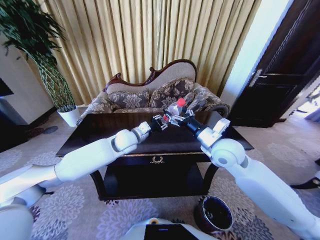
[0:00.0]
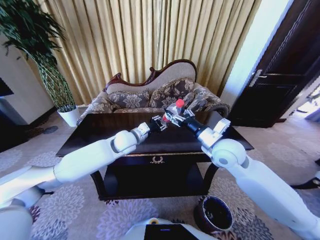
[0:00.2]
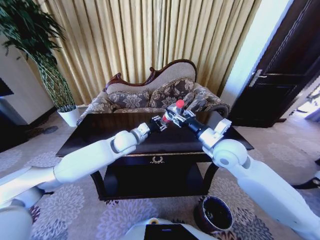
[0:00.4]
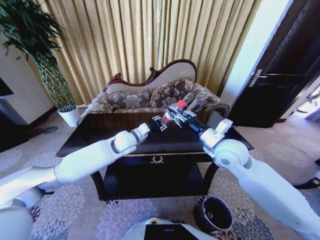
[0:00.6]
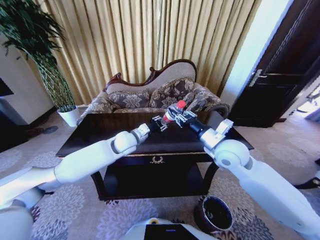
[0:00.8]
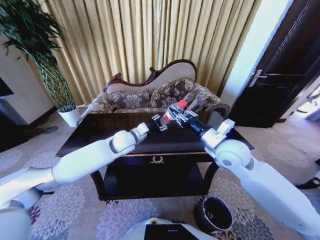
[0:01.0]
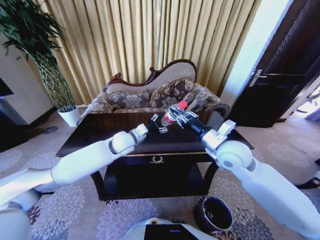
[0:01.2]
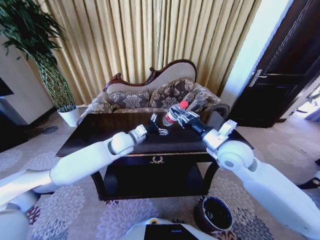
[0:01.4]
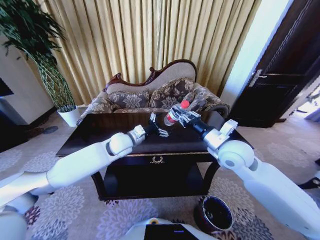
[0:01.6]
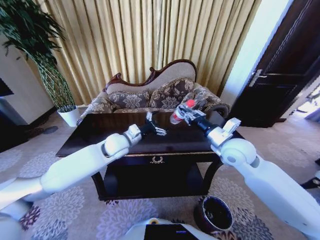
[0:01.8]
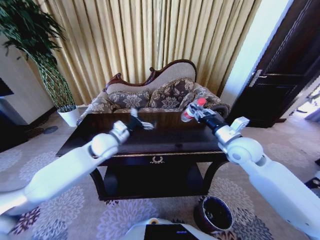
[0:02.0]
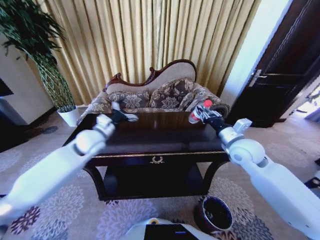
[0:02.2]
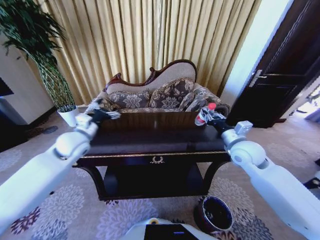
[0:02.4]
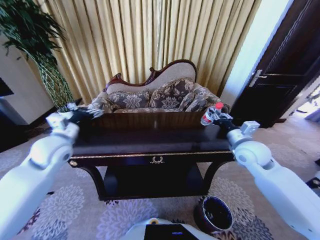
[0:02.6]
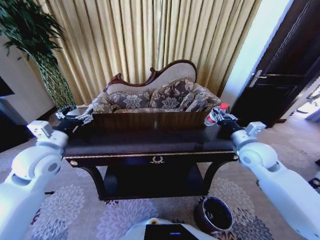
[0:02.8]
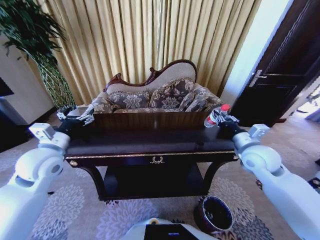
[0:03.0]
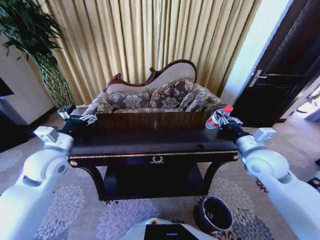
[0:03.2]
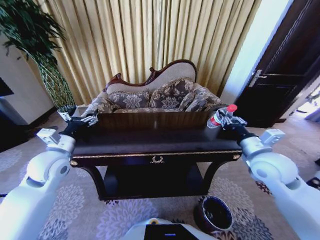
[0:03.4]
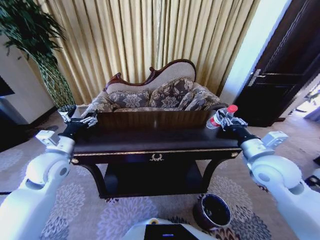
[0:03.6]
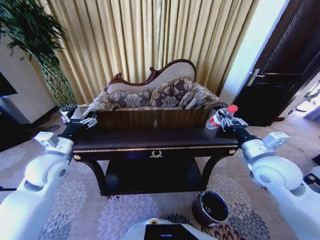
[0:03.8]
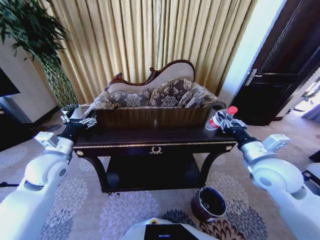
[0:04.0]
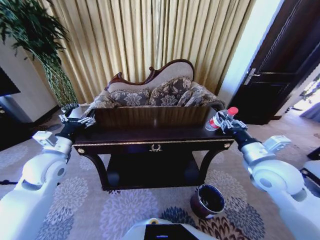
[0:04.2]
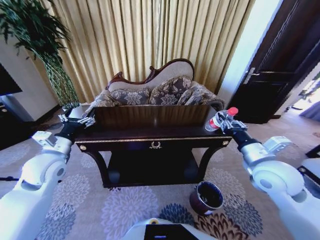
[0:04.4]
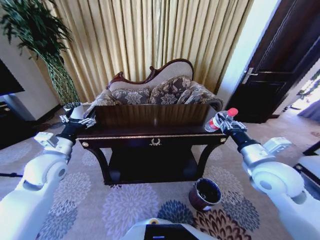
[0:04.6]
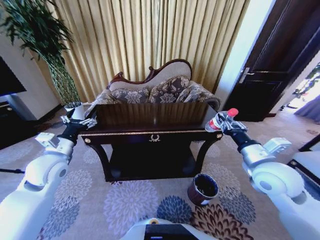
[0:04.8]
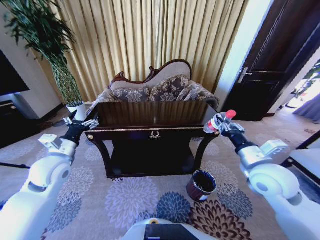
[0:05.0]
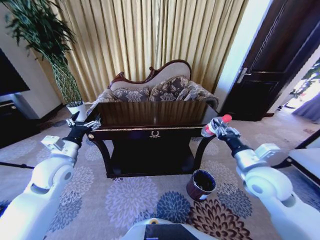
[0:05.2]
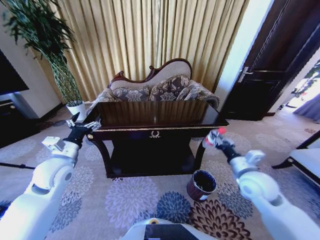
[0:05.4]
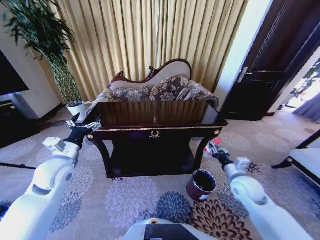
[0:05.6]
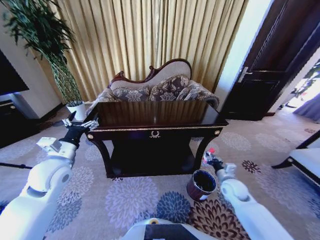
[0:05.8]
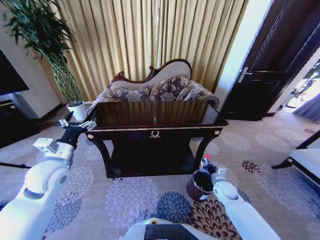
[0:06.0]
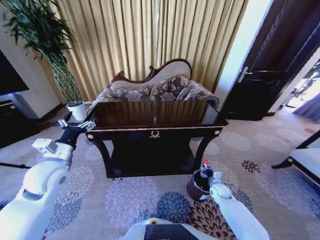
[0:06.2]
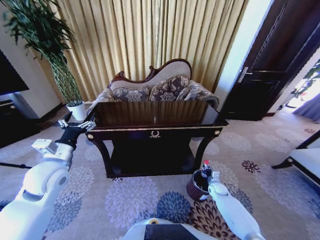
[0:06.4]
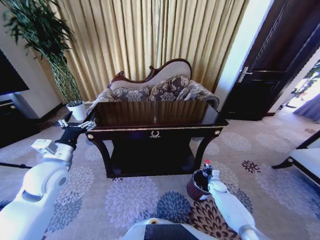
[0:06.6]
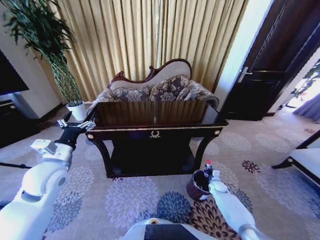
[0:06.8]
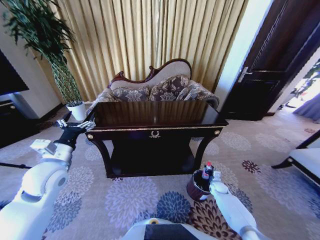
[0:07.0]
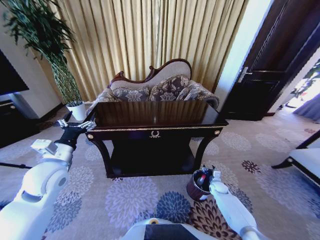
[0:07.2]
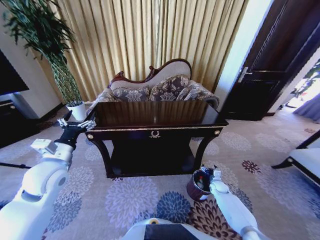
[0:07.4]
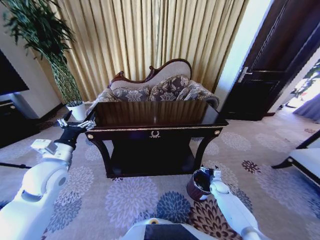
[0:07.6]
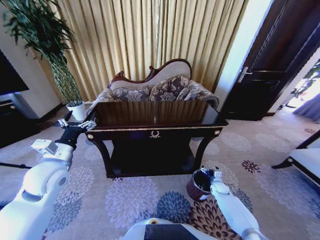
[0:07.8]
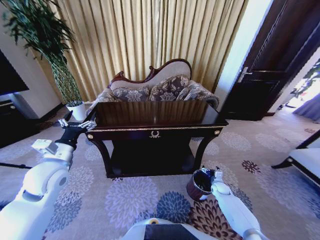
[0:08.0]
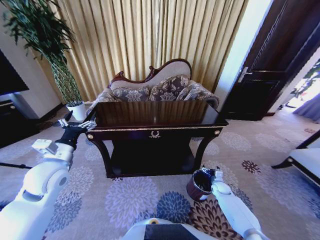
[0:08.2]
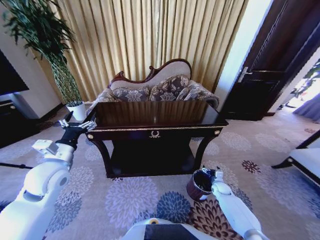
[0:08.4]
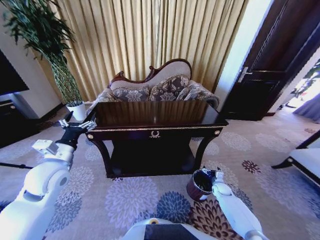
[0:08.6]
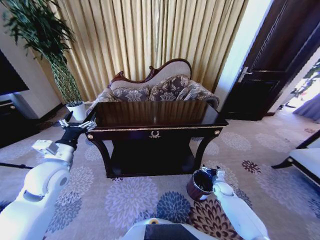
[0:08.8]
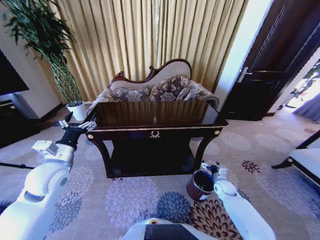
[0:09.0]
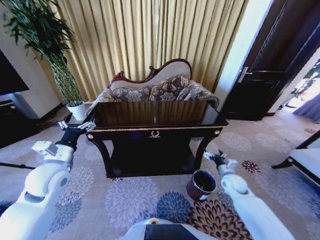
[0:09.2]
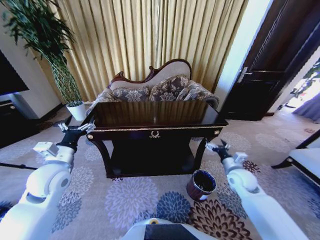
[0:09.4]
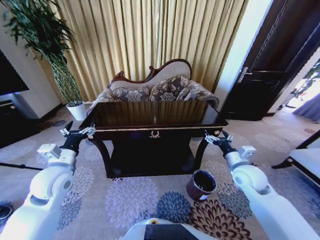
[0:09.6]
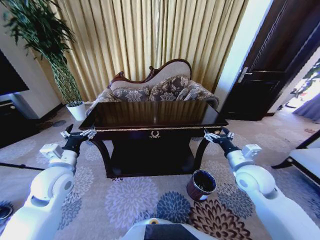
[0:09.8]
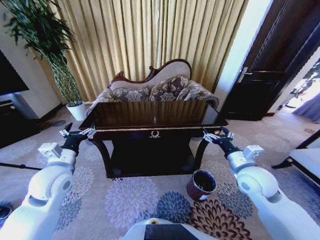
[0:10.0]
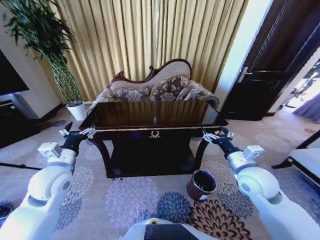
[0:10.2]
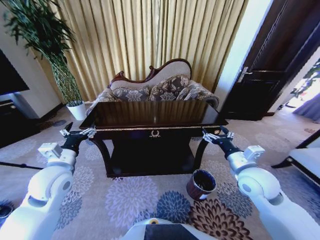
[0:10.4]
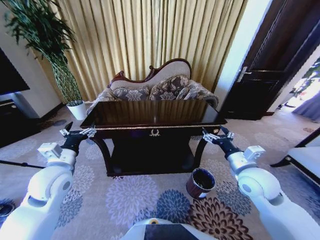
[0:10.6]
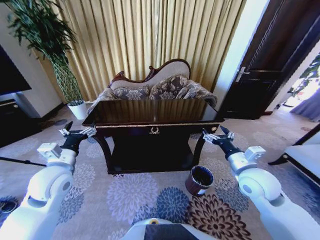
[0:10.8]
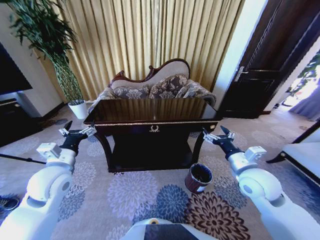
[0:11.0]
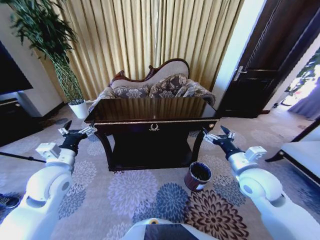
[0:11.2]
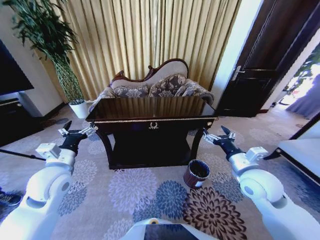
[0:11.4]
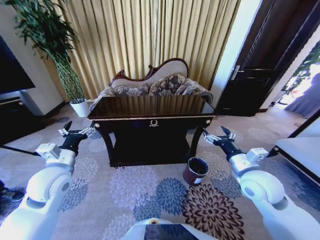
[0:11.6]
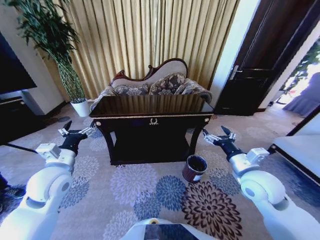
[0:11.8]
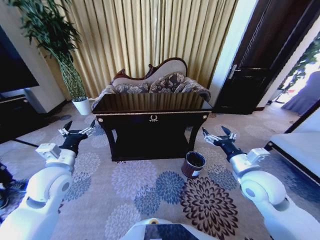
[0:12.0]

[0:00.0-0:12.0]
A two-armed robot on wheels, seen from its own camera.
Task of the whole recording: Move to the front of the table and place the trash on the table into the trash bin.
0:00.0 to 0:01.6: The left gripper opens its fingers; the right gripper closes up.
0:01.6 to 0:03.0: The left gripper travels to the left and backward by about 25 cm. The right gripper is displaced to the right by roughly 10 cm.
0:03.0 to 0:04.4: The right gripper shifts approximately 5 cm backward.
0:04.4 to 0:06.0: The right gripper heads downward, covering roughly 30 cm.
0:06.0 to 0:07.6: The right gripper is displaced downward by about 10 cm, and opens up.
0:07.6 to 0:09.0: The right gripper goes approximately 10 cm upward.
0:09.0 to 0:10.4: The right gripper moves upward, approximately 30 cm.

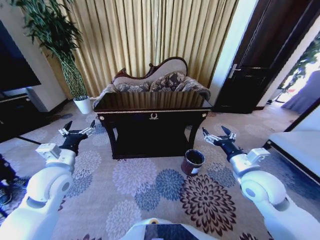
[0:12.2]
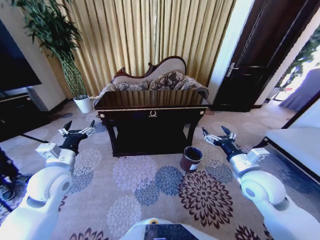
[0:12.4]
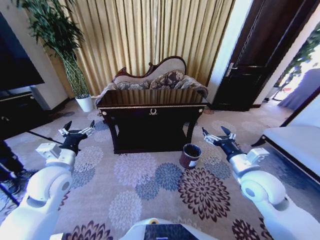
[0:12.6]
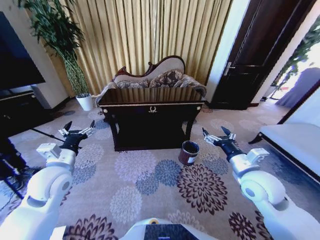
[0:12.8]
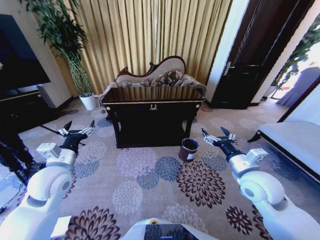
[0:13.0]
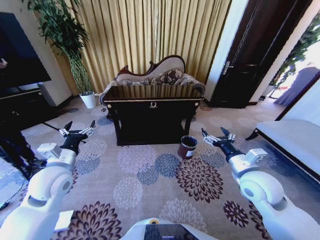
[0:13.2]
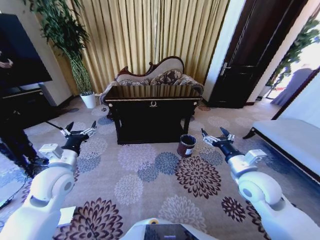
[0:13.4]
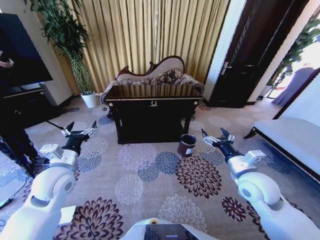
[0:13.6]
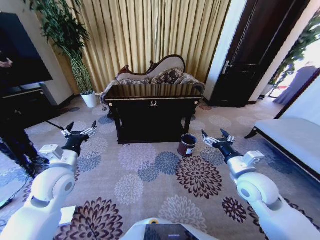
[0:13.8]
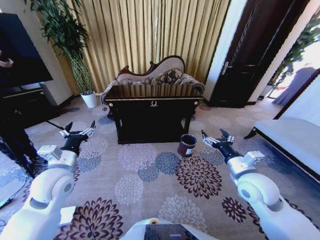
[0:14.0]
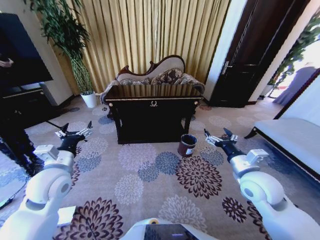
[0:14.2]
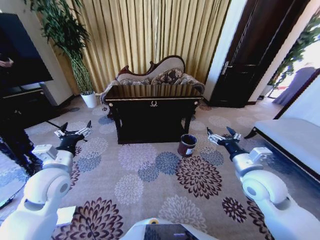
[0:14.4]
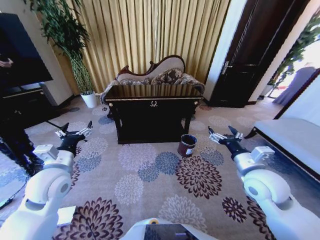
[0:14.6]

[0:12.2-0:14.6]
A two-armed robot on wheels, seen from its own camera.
Task of the whole recording: Move to the front of the table and place the trash on the table into the trash bin.
0:13.4 to 0:14.6: The grippers move only a little.

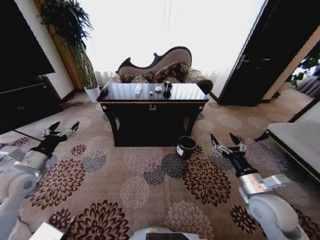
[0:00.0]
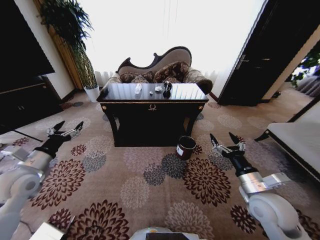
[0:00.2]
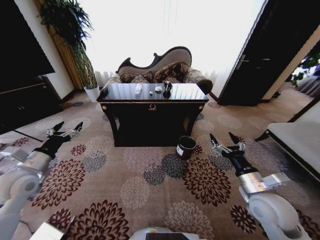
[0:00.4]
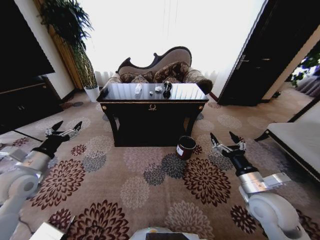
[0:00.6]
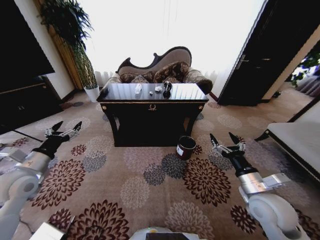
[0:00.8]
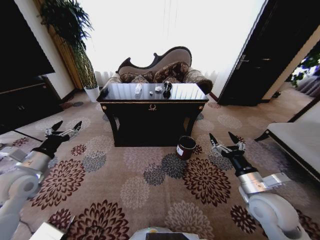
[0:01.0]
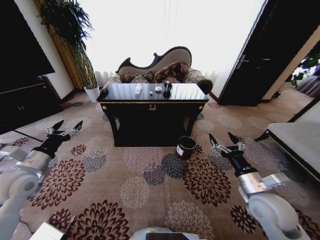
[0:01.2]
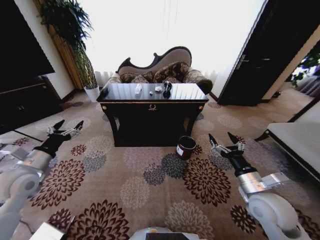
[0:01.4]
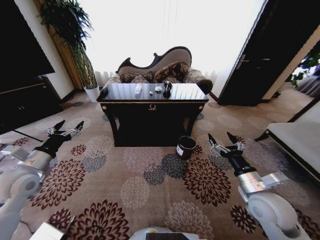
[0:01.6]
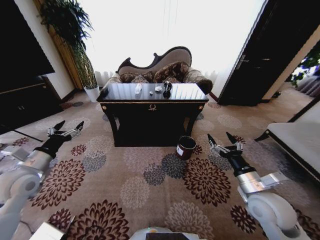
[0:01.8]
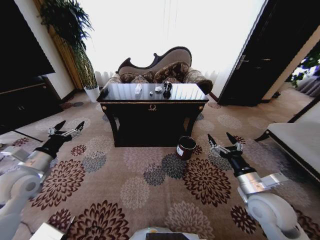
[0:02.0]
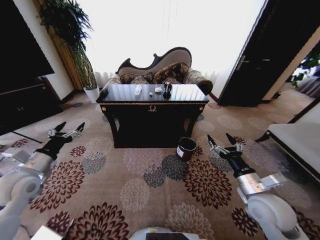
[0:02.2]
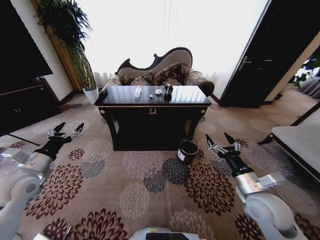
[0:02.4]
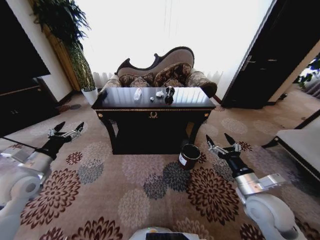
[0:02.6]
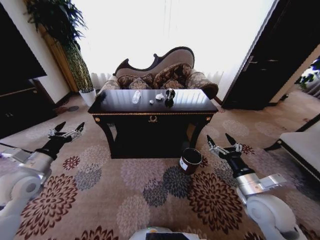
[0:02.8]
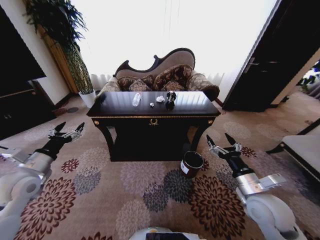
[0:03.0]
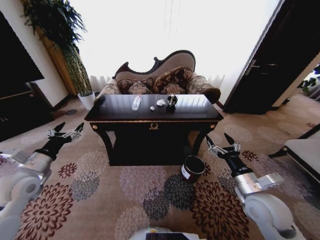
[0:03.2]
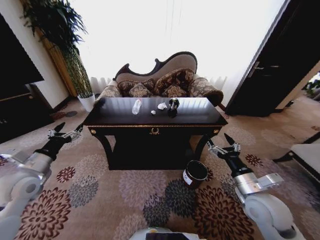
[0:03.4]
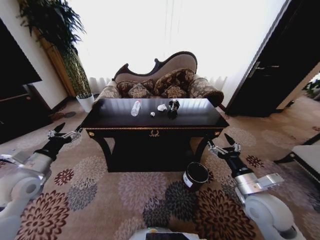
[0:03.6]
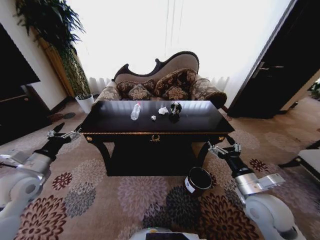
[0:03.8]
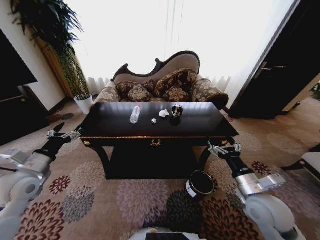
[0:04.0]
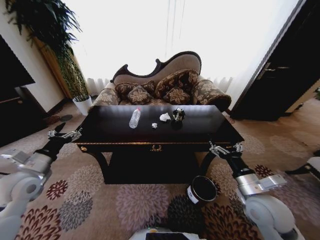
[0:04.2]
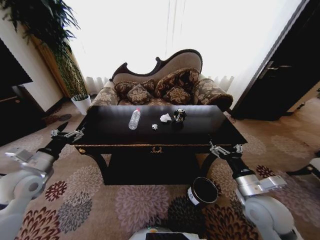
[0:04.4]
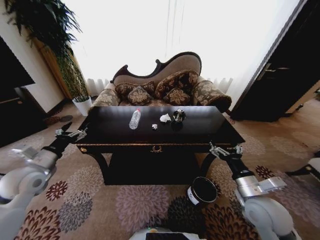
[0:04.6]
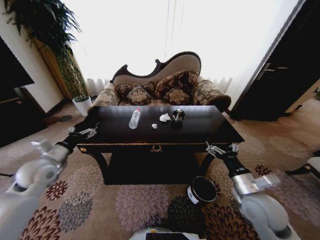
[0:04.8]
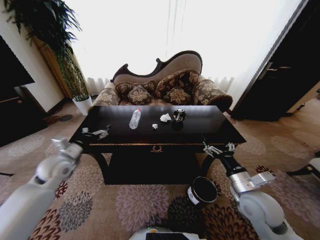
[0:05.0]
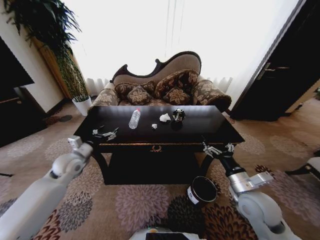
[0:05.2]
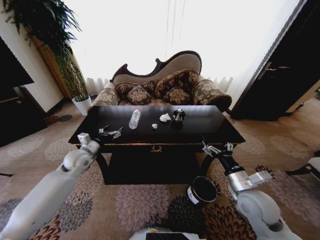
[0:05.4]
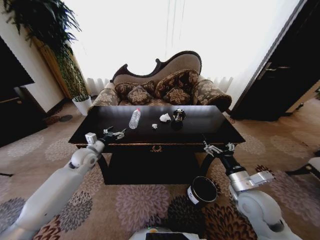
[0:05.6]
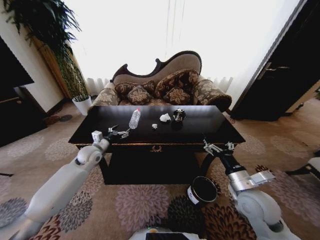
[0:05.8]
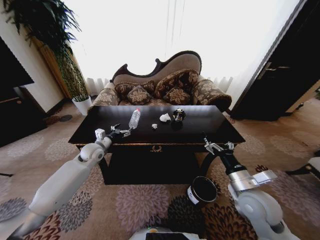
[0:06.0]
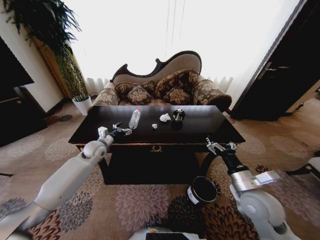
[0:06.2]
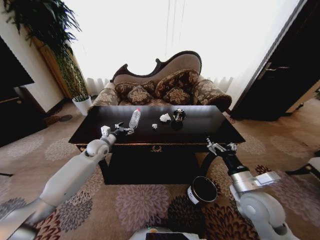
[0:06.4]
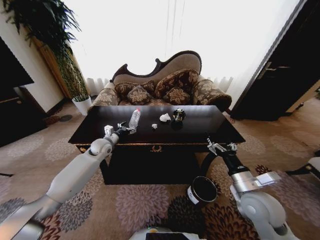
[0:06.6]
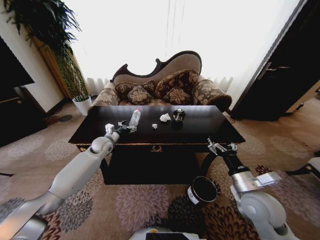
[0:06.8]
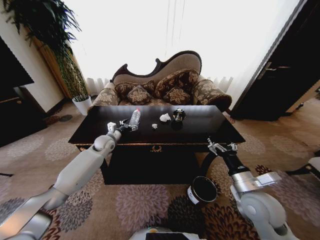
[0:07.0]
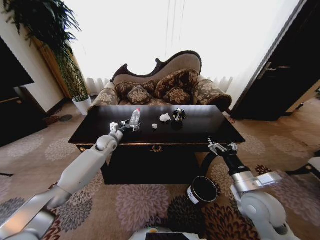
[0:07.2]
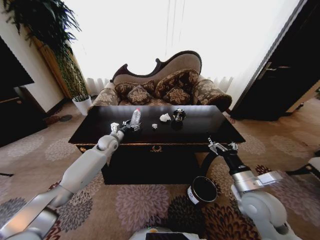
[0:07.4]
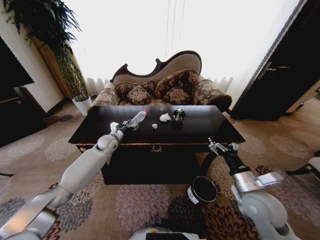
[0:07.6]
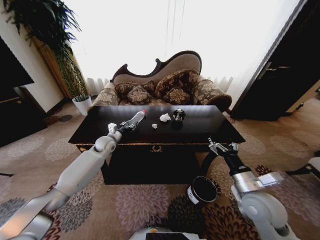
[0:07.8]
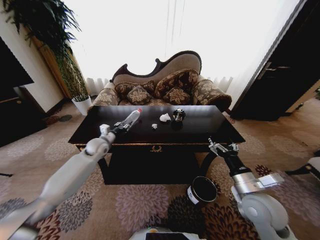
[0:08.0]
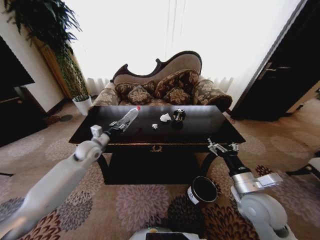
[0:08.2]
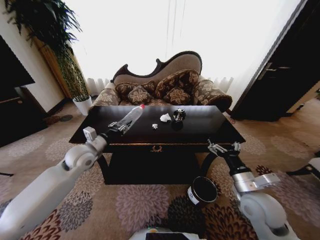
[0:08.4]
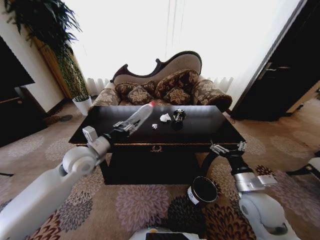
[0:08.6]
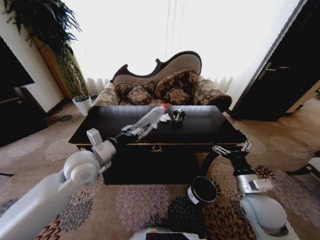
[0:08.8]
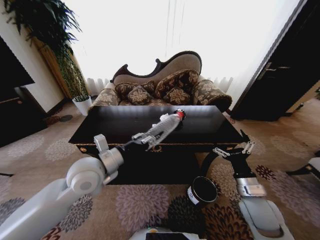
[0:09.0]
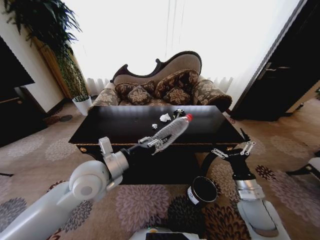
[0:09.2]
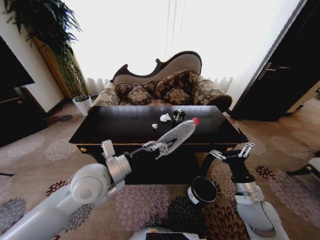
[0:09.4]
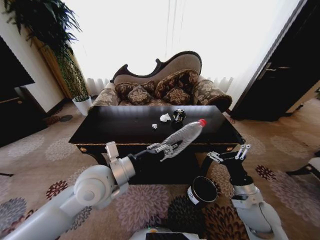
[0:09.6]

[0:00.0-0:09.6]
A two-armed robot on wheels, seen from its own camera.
Task of the whole recording: Move to the front of the table and place the trash on the table into the trash bin.
0:03.2 to 0:04.8: The left gripper moves forward, some 5 cm.
0:04.8 to 0:06.4: The left gripper goes roughly 20 cm forward, to the right and downward.
0:06.4 to 0:08.0: The left gripper closes its fingers.
0:08.0 to 0:09.6: The left gripper shifts roughly 30 cm backward, to the right and upward. The right gripper heads downward, covering some 5 cm.
